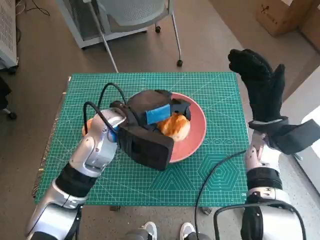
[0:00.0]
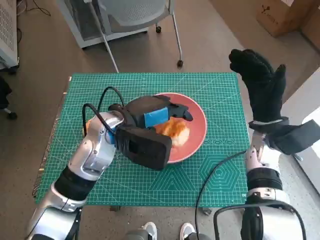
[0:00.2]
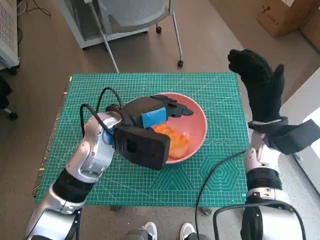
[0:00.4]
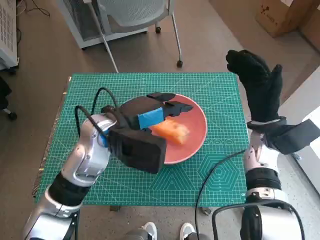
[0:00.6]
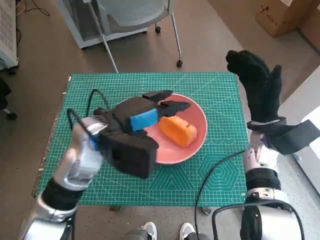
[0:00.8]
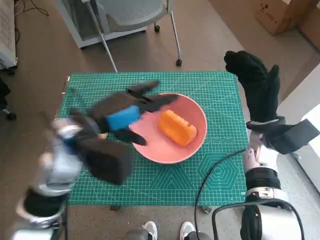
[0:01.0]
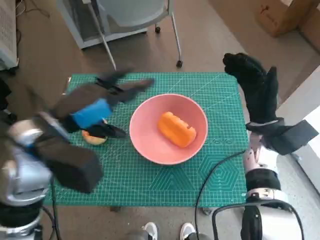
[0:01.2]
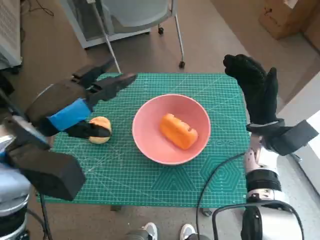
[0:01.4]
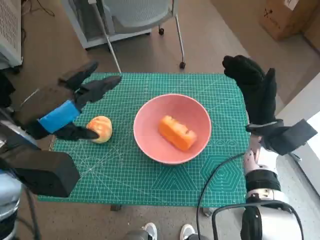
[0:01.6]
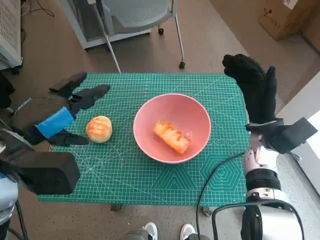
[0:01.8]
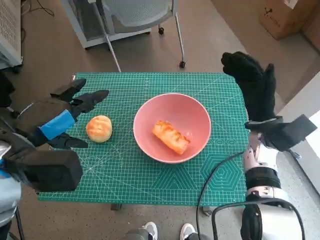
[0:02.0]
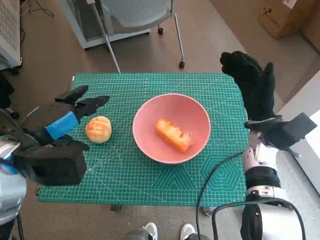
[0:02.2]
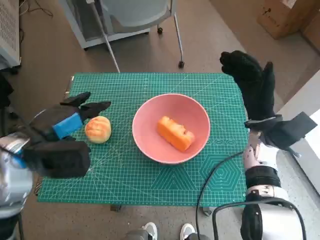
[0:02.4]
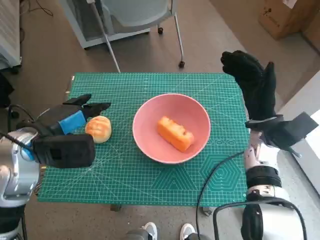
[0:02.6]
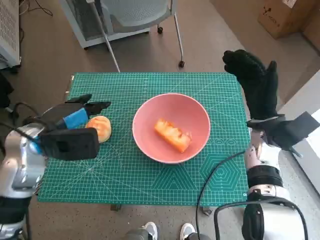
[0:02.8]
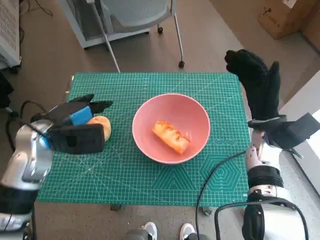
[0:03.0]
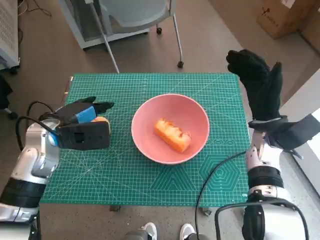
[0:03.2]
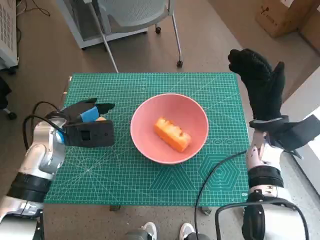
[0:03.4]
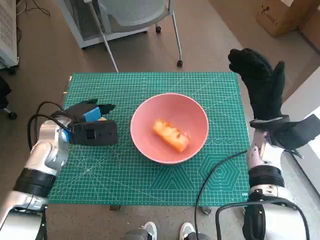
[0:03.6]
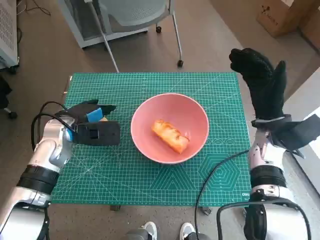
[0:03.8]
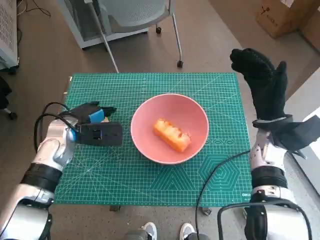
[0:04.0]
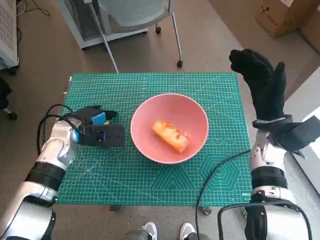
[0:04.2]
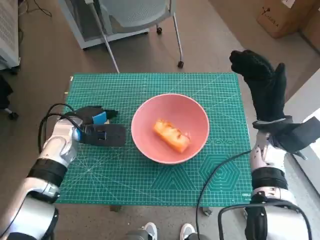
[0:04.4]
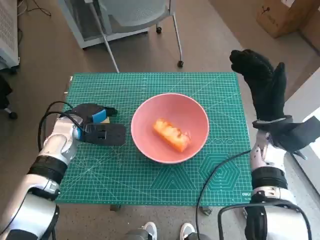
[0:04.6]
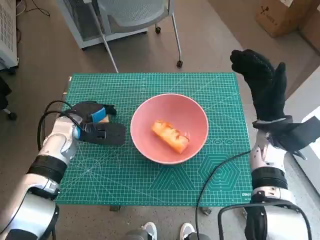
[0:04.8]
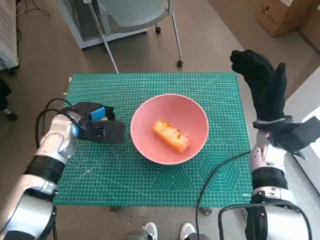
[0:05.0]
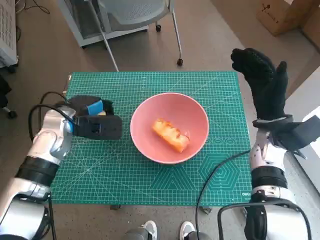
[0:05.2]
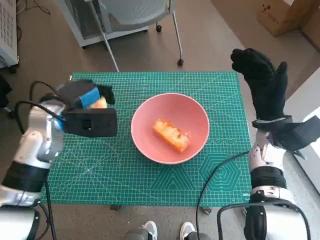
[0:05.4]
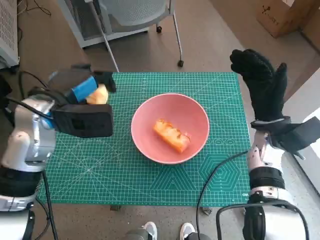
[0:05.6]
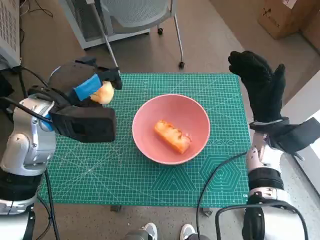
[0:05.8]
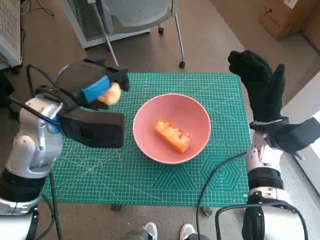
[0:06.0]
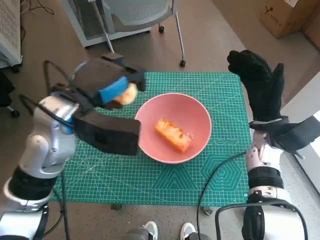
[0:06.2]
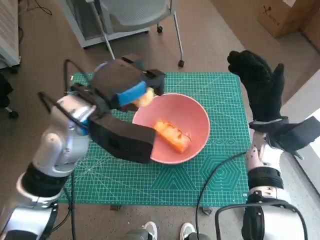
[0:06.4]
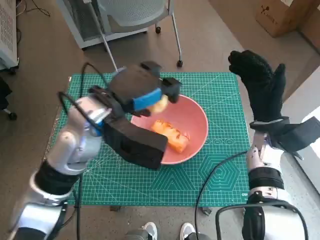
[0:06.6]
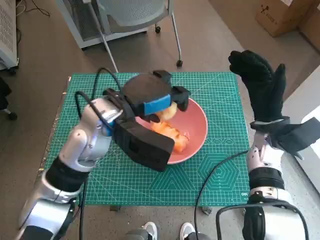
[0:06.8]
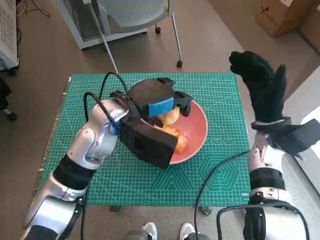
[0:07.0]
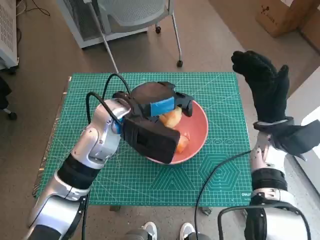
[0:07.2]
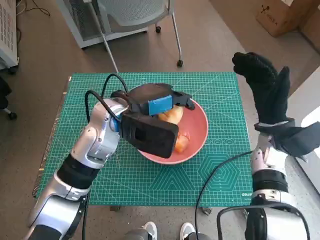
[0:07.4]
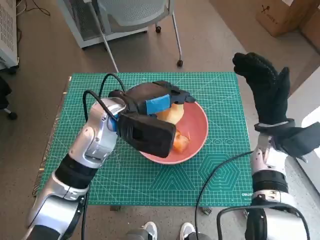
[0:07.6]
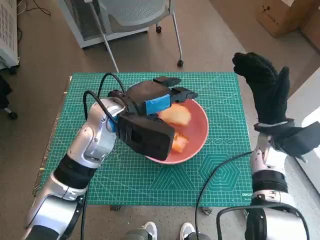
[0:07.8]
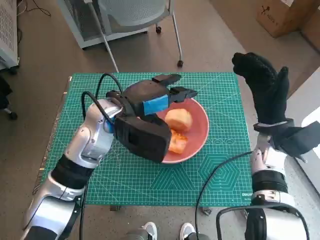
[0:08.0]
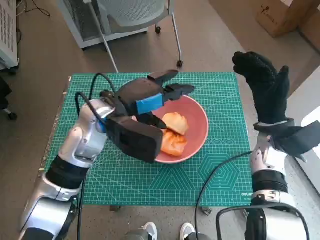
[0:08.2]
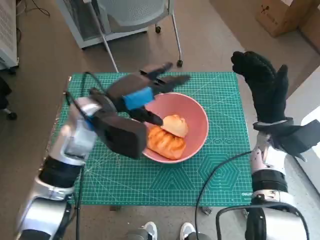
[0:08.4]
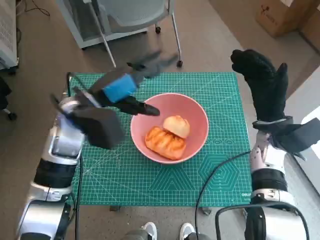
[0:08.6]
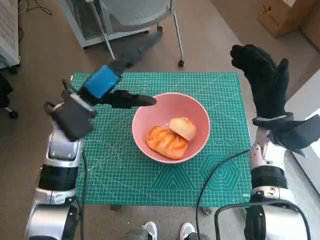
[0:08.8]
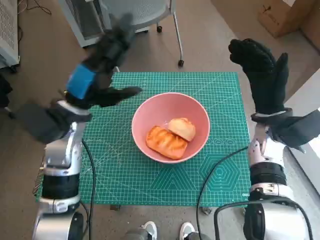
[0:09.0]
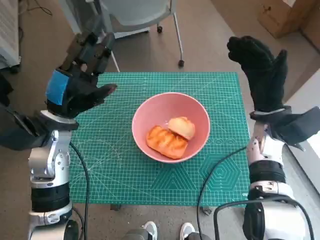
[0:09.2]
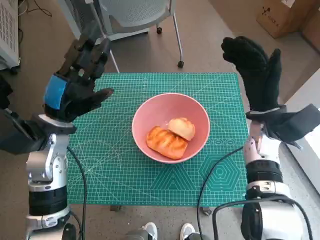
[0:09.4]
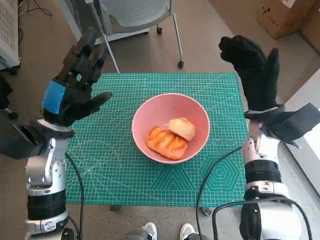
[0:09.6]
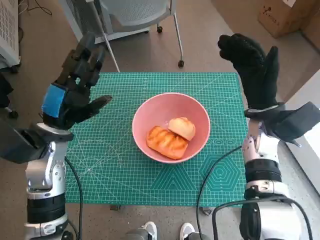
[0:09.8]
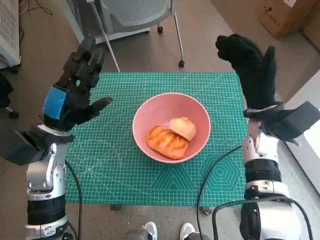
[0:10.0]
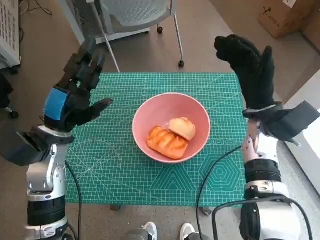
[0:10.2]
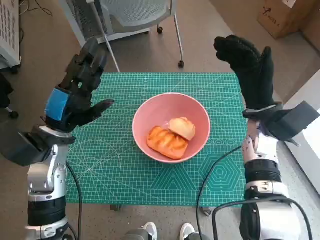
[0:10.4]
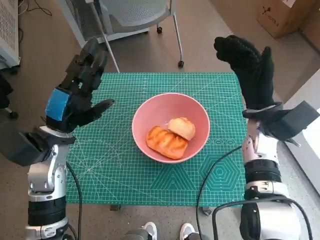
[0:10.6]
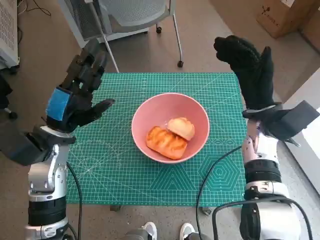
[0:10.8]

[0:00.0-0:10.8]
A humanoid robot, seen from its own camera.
Step, 0:00.6 to 0:04.4: Grasp the round bread with left hand.
Step, 0:04.6 to 0:08.0: Place the round bread in pink bowl with left hand.
0:00.0 to 0:01.6: The left hand shifts about 15 cm to the left, backward and upward.
0:01.6 to 0:03.0: The left hand travels downward and forward by roughly 10 cm.
0:03.0 to 0:04.6: The left hand heads downward and forward, covering approximately 10 cm.
0:04.6 to 0:06.2: The left hand is displaced upward and to the right by approximately 15 cm.
0:06.2 to 0:07.8: The left hand is displaced to the right by about 5 cm.
0:07.8 to 0:09.2: The left hand is displaced to the left by about 10 cm.
0:09.2 to 0:10.8: The hands make only small movements.

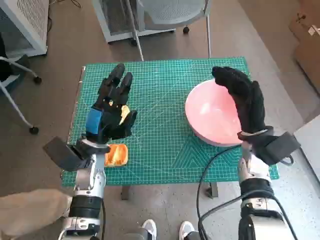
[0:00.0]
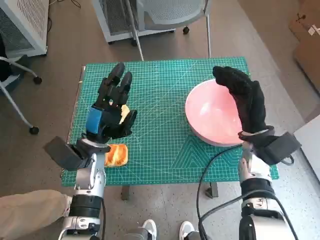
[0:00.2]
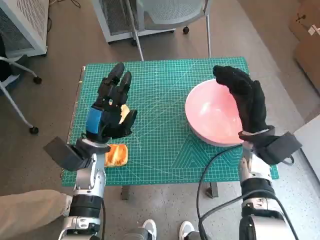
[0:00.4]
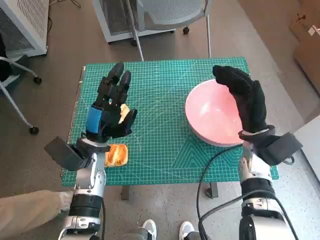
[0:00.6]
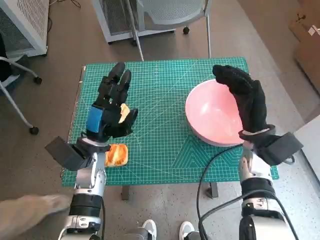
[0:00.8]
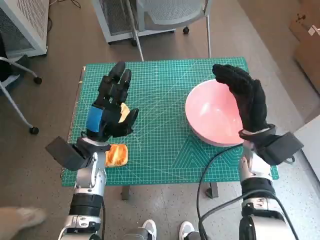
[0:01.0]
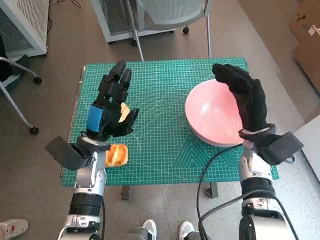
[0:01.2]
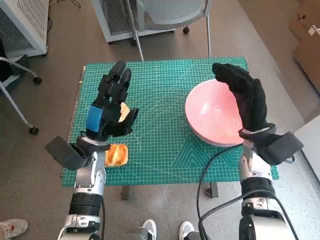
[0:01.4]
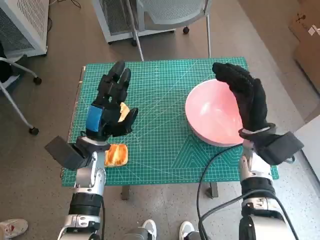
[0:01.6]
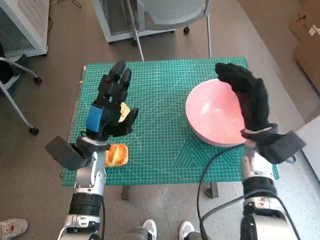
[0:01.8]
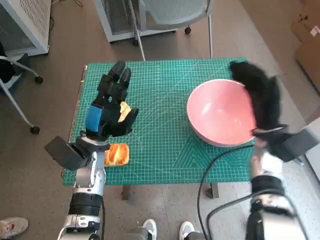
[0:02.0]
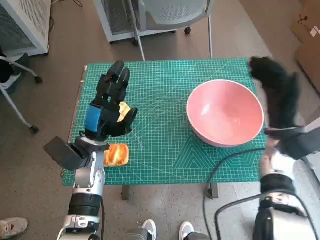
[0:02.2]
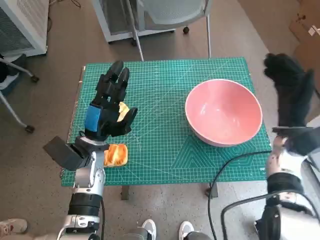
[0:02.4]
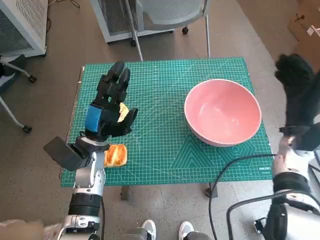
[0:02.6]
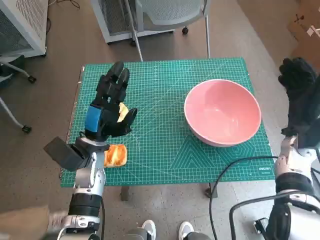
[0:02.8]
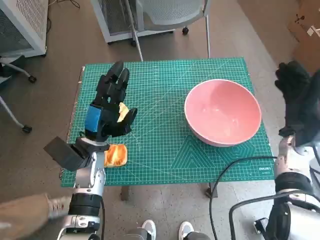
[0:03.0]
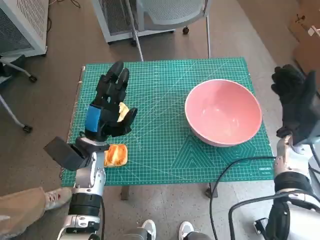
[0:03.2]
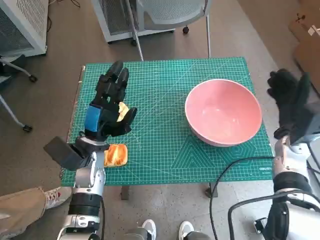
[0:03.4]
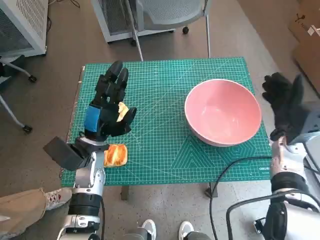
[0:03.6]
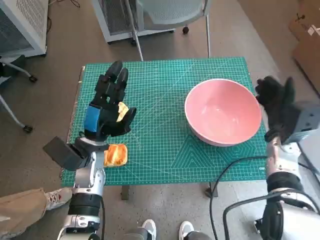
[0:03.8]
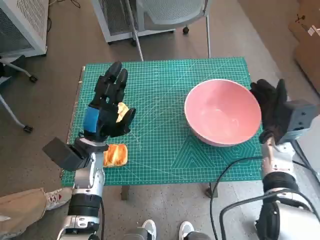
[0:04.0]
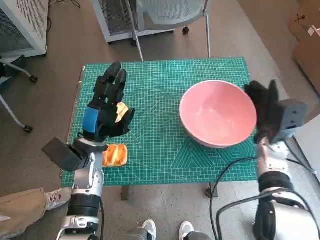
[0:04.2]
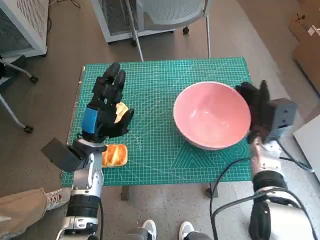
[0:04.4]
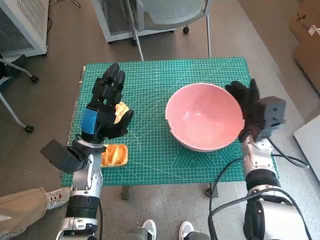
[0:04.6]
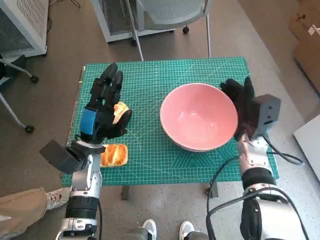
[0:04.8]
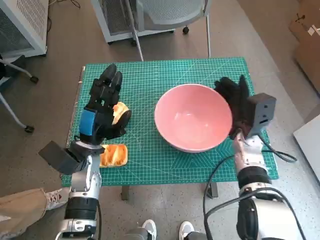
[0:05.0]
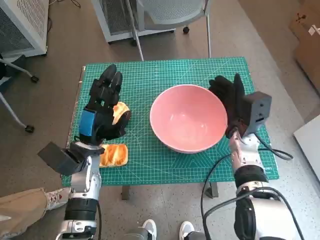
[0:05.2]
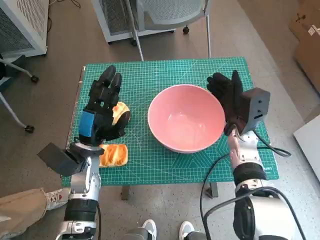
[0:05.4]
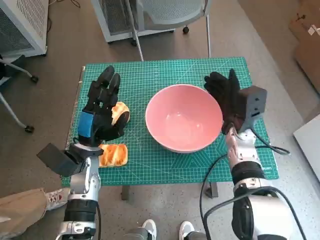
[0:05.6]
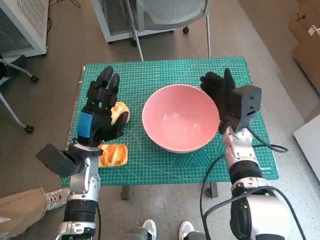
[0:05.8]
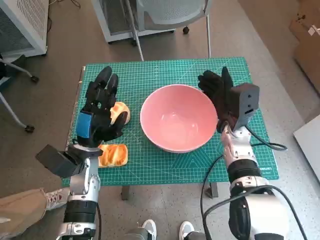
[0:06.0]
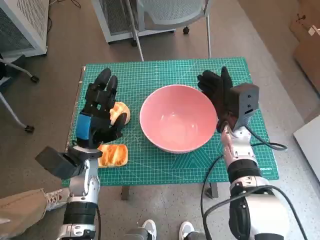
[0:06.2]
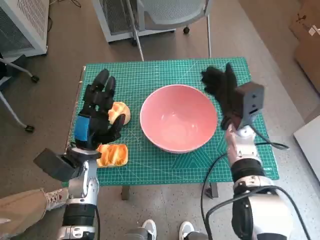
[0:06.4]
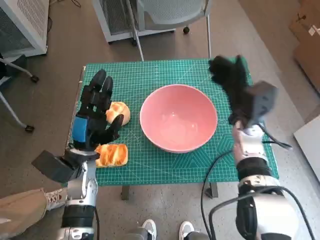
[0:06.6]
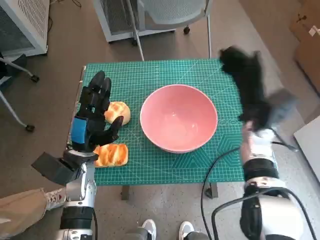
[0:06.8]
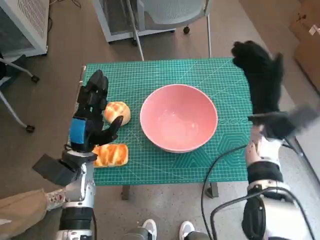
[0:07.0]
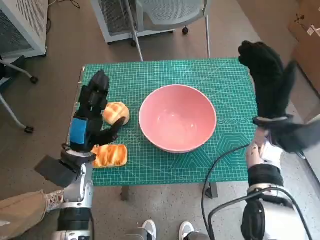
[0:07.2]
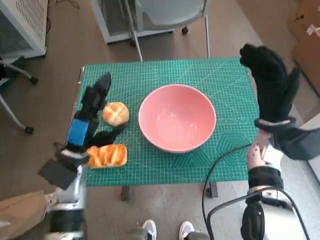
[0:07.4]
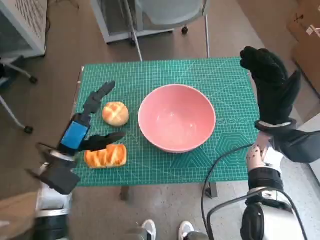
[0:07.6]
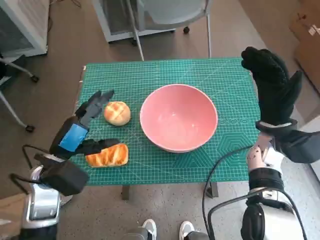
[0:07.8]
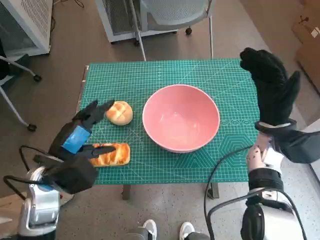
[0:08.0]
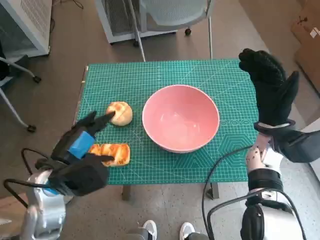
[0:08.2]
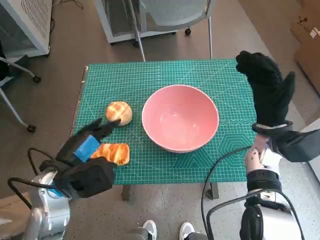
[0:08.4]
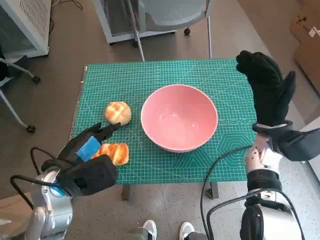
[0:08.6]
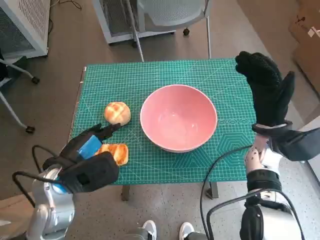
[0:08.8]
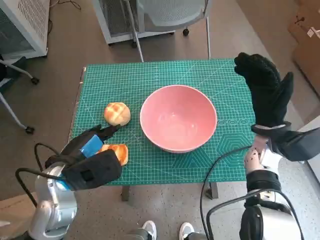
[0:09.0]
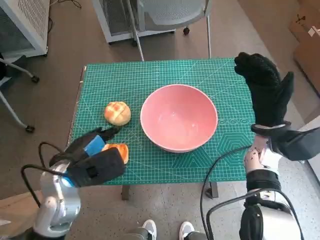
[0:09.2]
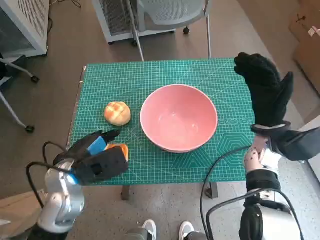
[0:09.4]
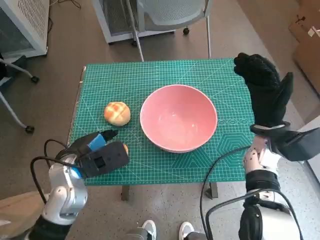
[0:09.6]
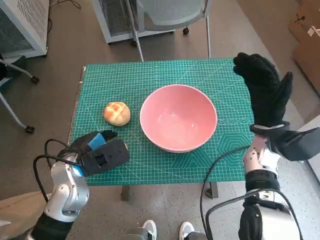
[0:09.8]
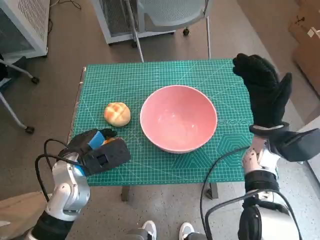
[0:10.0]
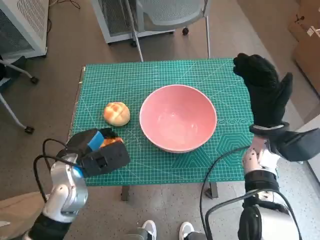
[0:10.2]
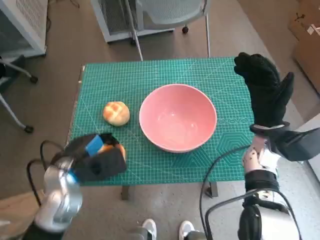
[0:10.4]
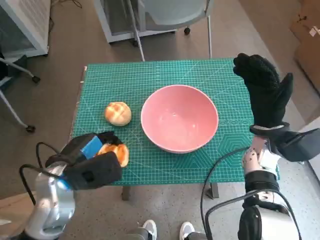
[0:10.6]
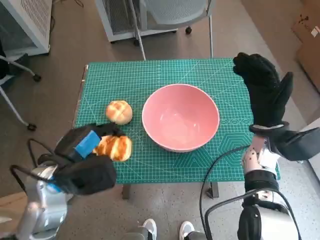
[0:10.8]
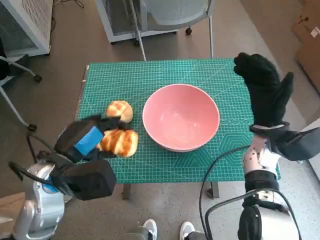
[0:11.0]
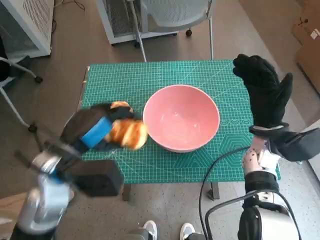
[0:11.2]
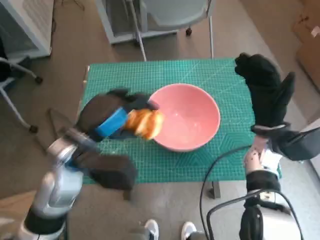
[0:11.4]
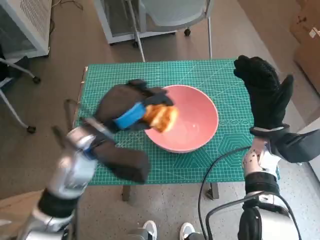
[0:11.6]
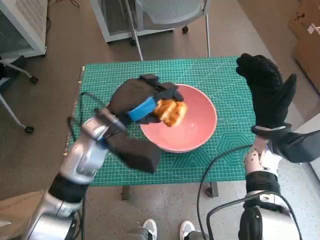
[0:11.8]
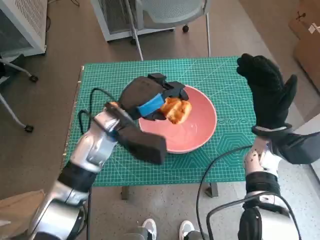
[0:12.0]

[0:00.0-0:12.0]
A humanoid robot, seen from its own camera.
Step, 0:00.0 to 0:06.2: Move the pink bowl to the center of table with right hand.
Step, 0:06.4 to 0:10.0: Grasp the long bread with left hand.
0:01.6 to 0:03.0: The right hand goes roughly 10 cm to the right.
0:03.0 to 0:04.4: The right hand is displaced to the left by about 5 cm.
0:04.4 to 0:06.0: The right hand moves to the left, about 5 cm.
0:06.0 to 0:07.6: The right hand goes roughly 5 cm to the right.
0:09.0 to 0:10.4: The hands move only a little.
0:10.4 to 0:12.0: The left hand is displaced to the right and forward by some 10 cm.
